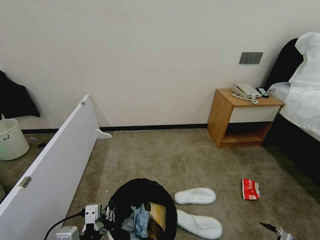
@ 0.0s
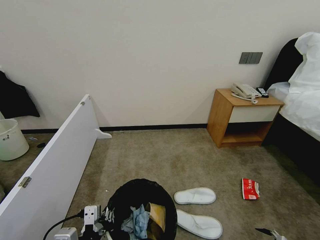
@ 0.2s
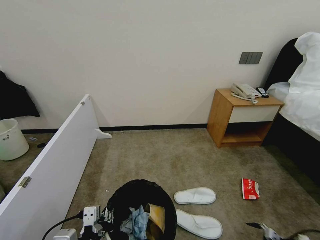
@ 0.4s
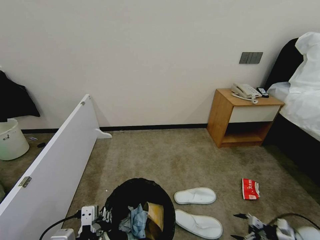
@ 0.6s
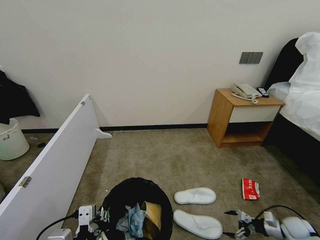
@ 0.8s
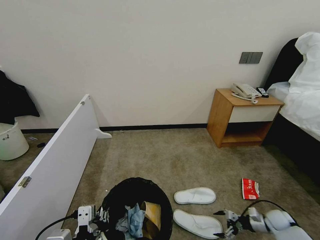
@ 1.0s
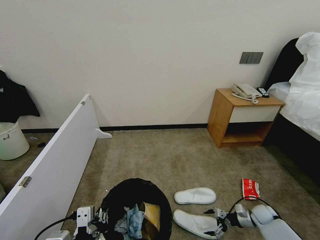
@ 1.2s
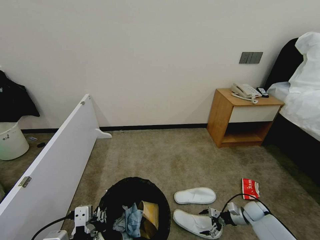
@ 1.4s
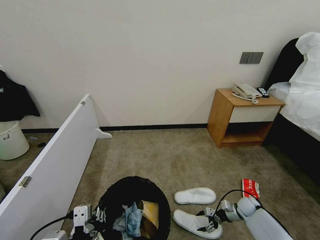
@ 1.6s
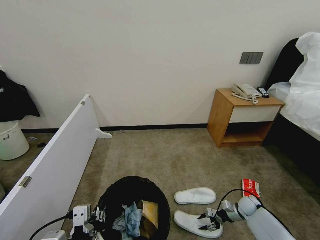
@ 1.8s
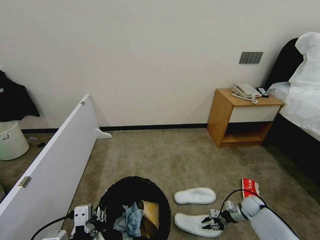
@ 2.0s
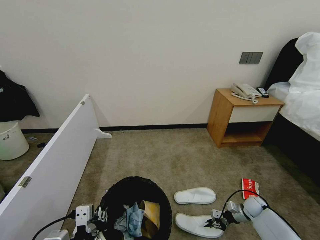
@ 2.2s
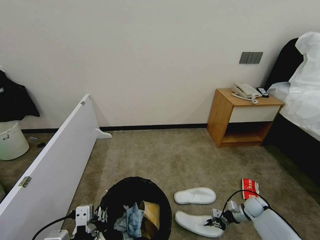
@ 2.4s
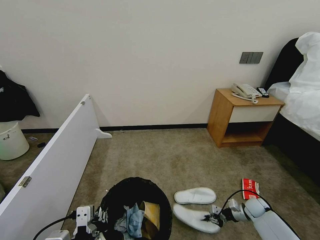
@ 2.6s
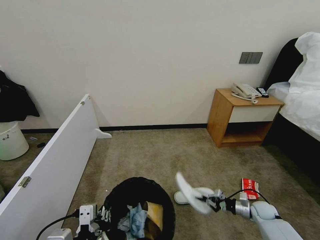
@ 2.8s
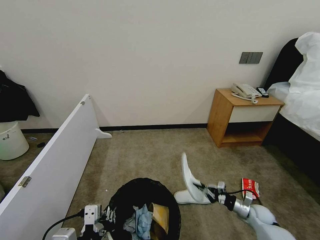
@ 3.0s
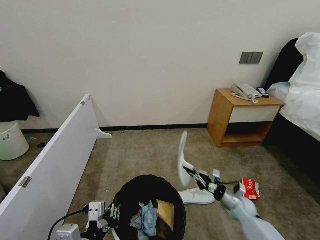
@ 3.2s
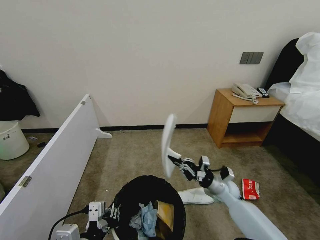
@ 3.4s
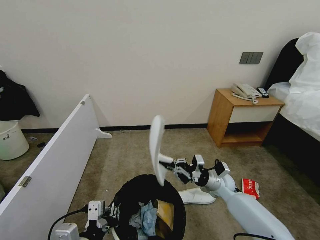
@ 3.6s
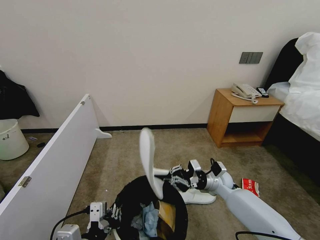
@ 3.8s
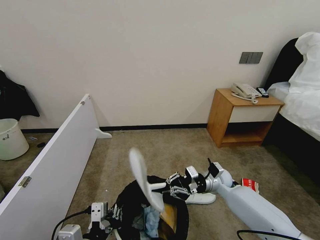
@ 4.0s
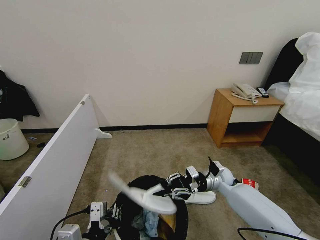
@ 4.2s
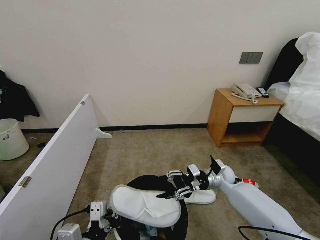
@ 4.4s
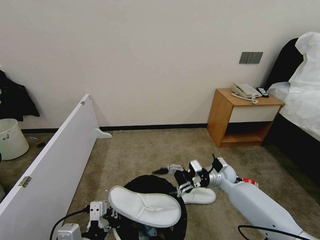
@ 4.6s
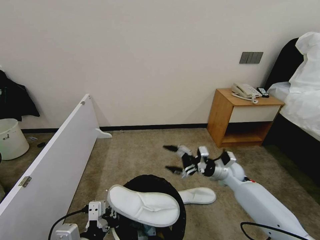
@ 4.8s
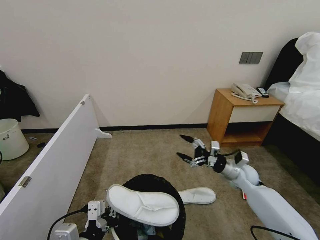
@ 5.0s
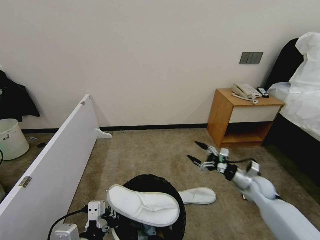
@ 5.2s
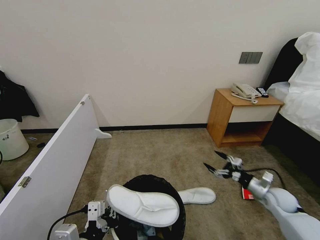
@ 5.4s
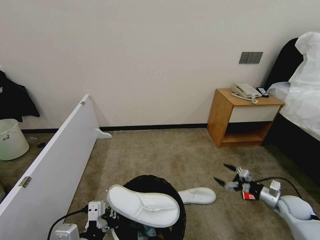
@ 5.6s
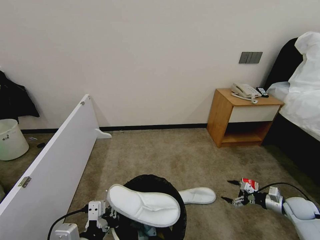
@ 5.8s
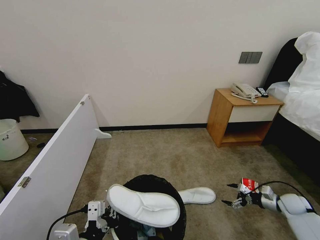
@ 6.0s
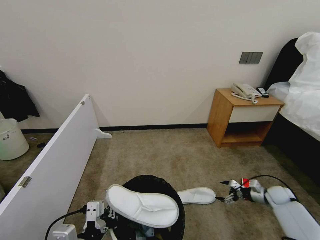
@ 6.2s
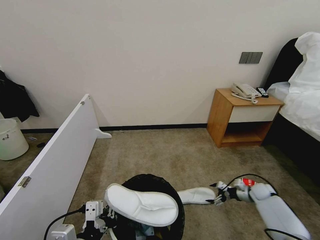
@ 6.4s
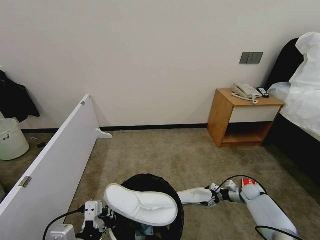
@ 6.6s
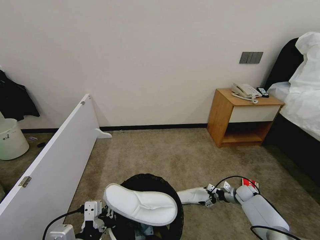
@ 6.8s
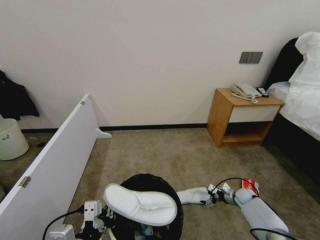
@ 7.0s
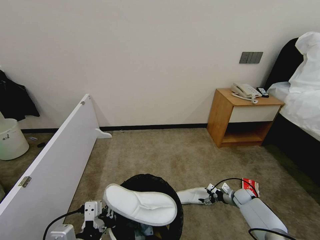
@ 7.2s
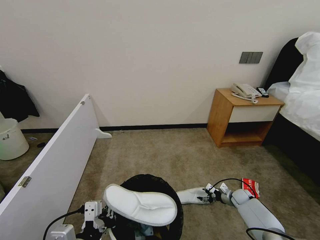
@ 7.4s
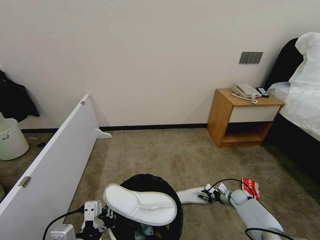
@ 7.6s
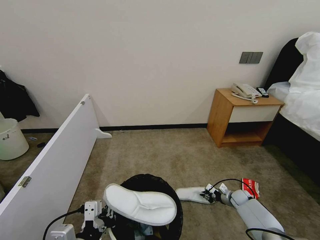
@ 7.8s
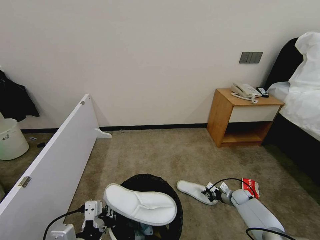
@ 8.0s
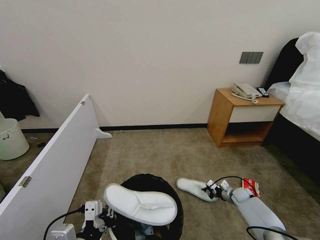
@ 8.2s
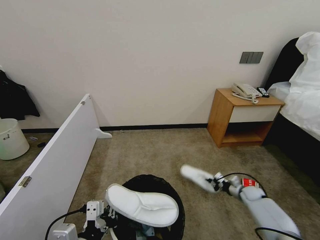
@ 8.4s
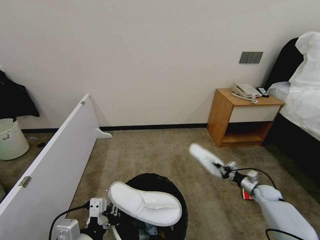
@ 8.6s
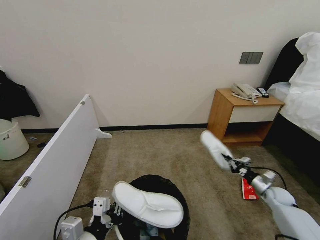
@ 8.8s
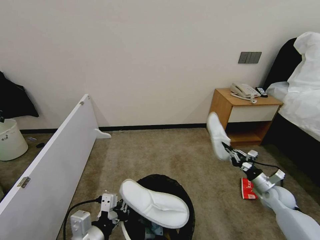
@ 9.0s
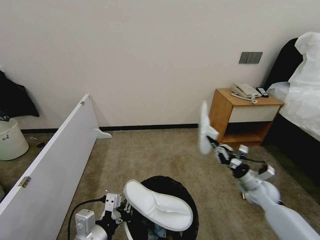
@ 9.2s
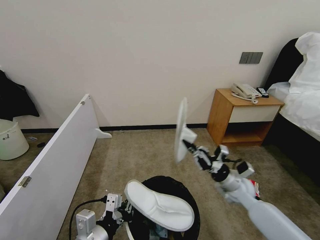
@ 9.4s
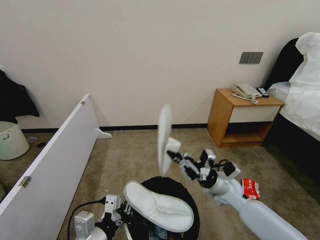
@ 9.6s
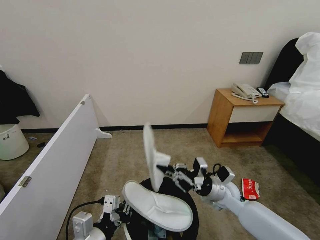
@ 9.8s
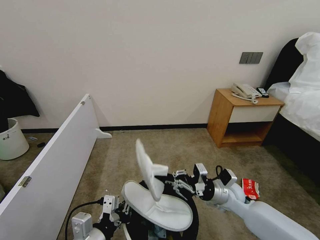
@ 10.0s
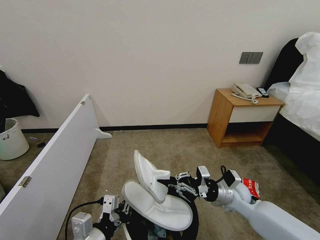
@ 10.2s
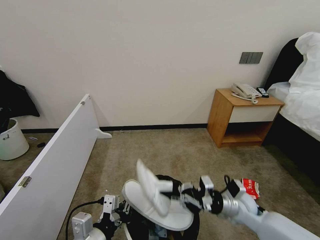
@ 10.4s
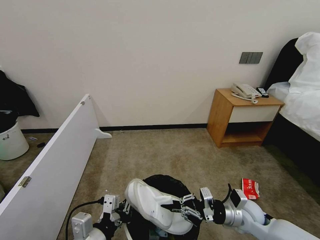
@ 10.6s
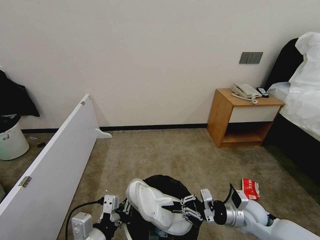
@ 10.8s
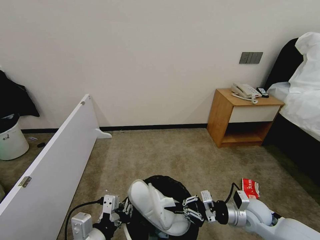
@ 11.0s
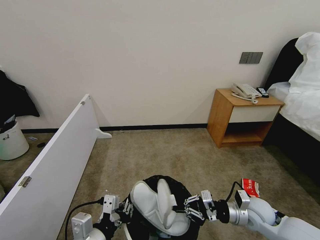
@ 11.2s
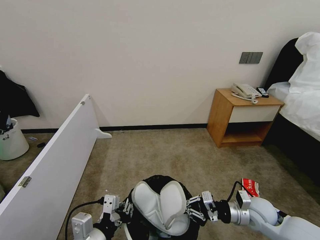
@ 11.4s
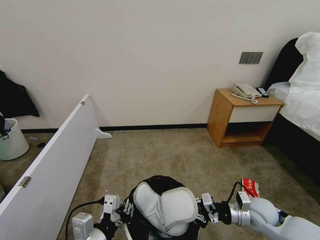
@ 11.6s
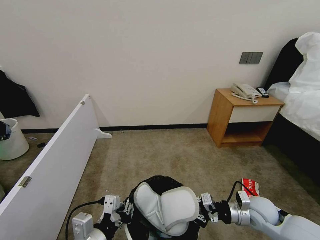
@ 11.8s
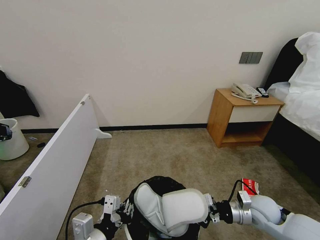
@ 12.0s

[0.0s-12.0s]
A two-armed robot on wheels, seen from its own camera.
Task of the whole recording: Pick up the trash bin, then pick up the garbage from the floor and place it into the trash bin.
0.0s to 1.6s: The right gripper goes about 35 cm forward and to the left.
1.6s to 3.0s: The right gripper moves approximately 5 cm, and closes its fingers.
3.0s to 4.4s: The right gripper travels to the left and upward by about 25 cm, and opens.
4.4s to 6.0s: The right gripper is displaced to the right by approximately 30 cm, and opens.
6.0s to 7.6s: The right gripper shifts some 20 cm to the left, downward and forward, and closes its fingers.
7.6s to 9.0s: The right gripper travels upward and backward by about 15 cm, and closes up.
9.0s to 10.4s: The right gripper goes roughly 20 cm to the left.
10.4s to 12.0s: The right gripper goes some 5 cm to the right.

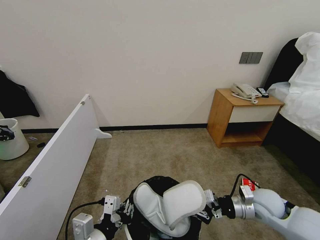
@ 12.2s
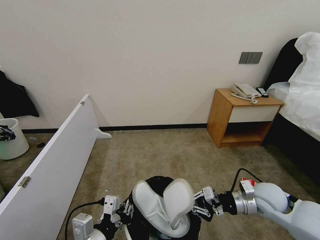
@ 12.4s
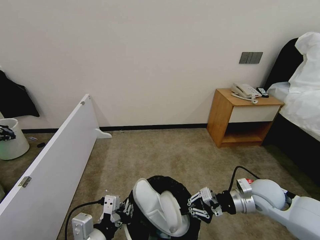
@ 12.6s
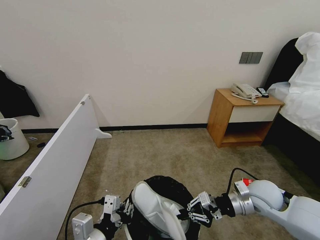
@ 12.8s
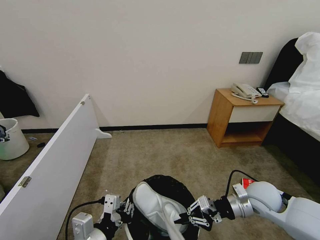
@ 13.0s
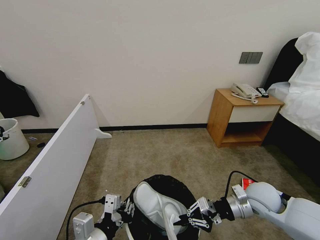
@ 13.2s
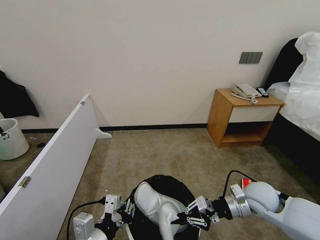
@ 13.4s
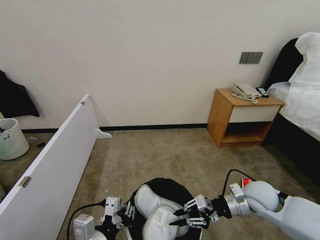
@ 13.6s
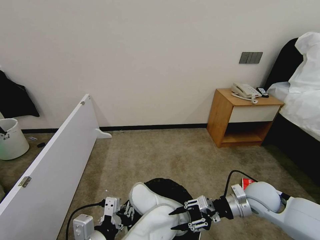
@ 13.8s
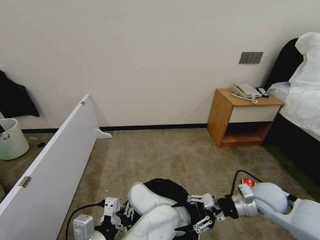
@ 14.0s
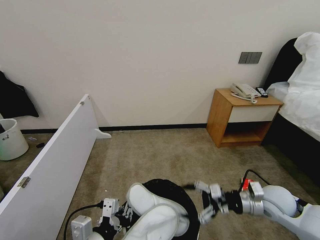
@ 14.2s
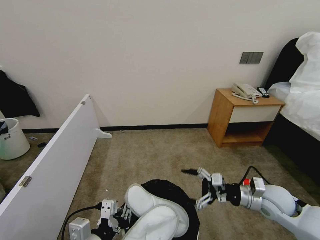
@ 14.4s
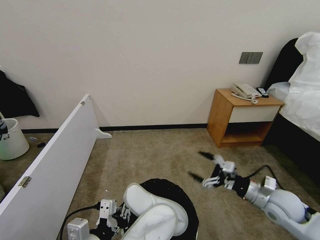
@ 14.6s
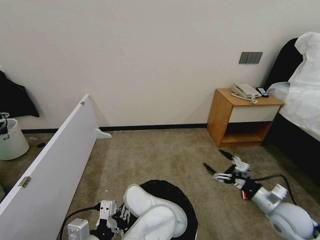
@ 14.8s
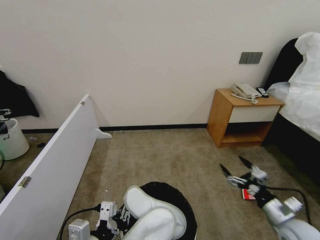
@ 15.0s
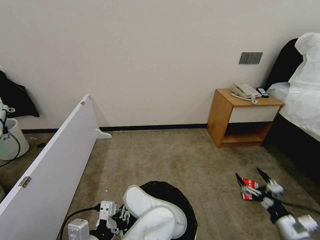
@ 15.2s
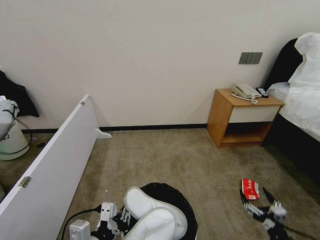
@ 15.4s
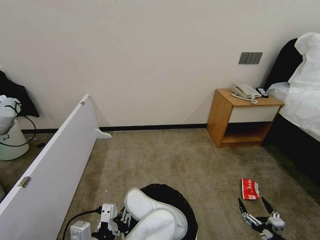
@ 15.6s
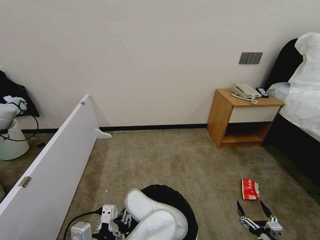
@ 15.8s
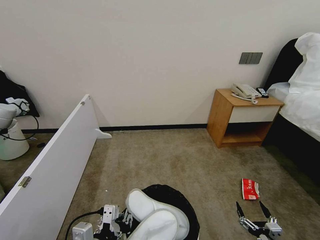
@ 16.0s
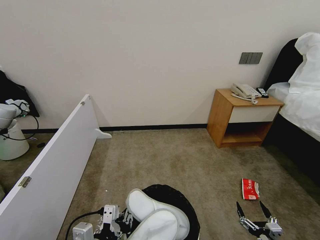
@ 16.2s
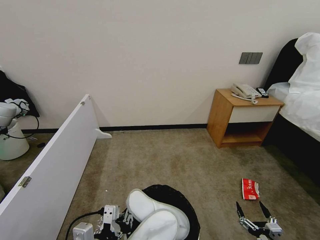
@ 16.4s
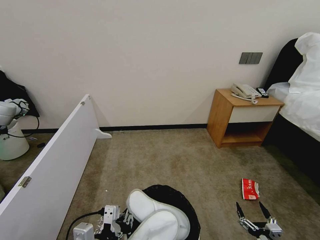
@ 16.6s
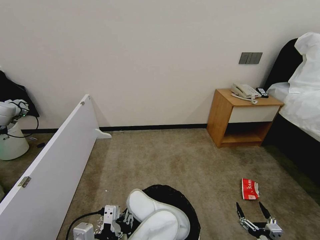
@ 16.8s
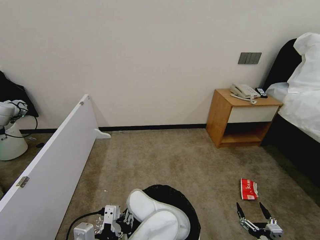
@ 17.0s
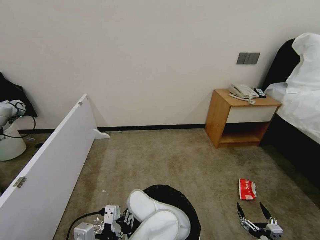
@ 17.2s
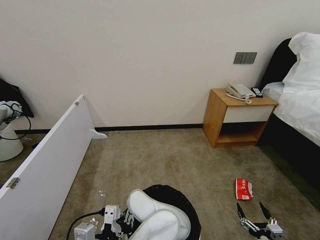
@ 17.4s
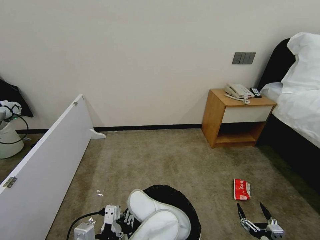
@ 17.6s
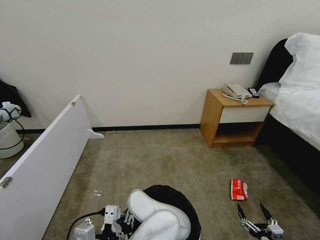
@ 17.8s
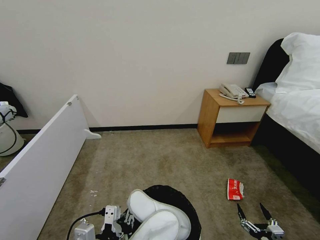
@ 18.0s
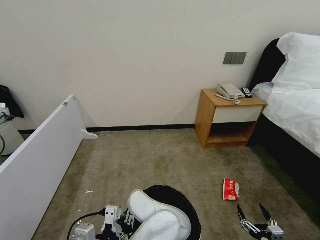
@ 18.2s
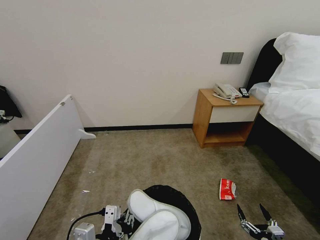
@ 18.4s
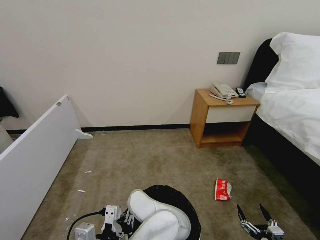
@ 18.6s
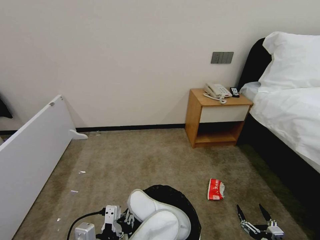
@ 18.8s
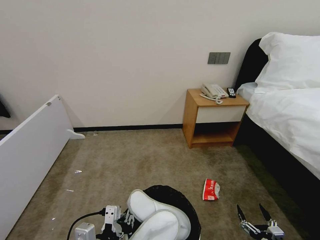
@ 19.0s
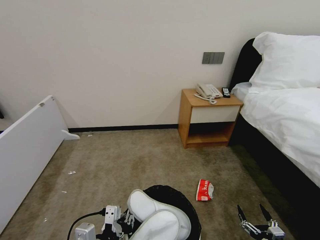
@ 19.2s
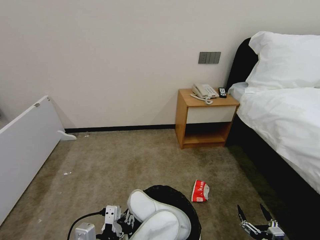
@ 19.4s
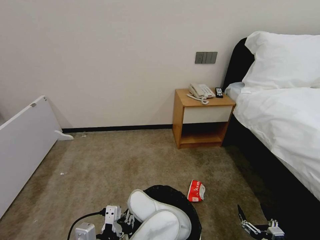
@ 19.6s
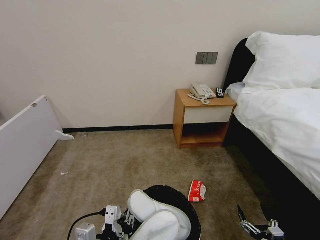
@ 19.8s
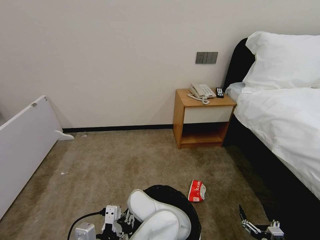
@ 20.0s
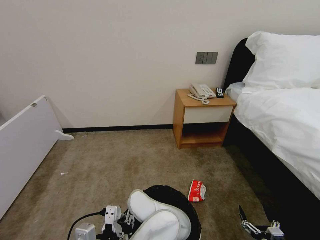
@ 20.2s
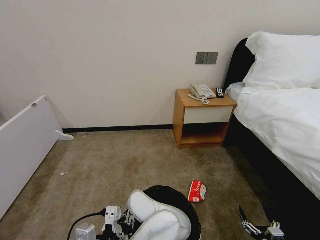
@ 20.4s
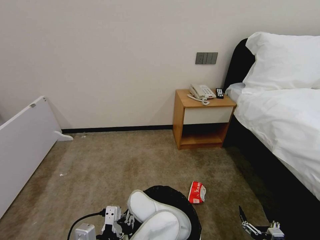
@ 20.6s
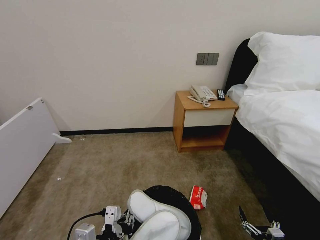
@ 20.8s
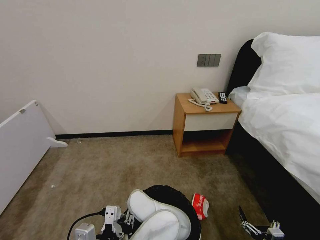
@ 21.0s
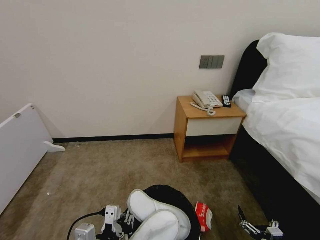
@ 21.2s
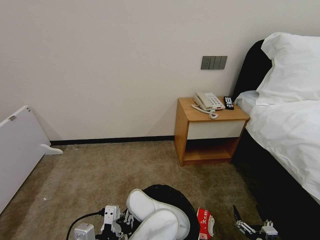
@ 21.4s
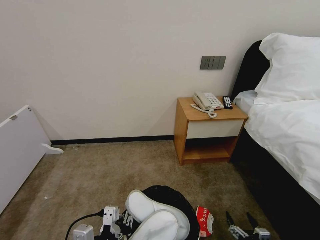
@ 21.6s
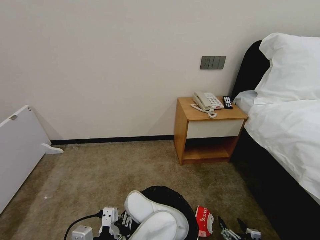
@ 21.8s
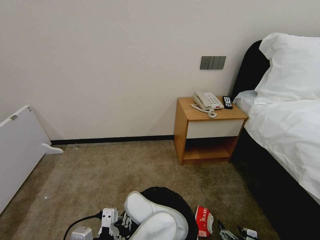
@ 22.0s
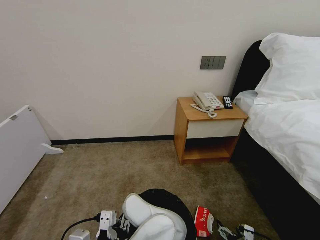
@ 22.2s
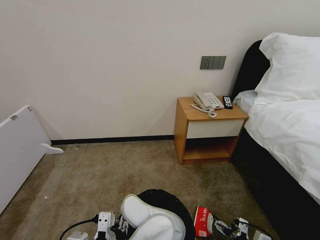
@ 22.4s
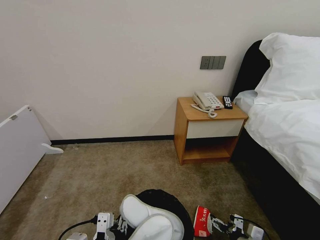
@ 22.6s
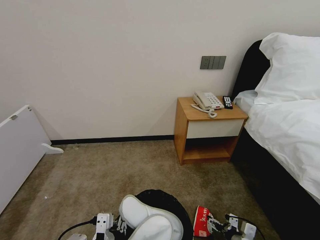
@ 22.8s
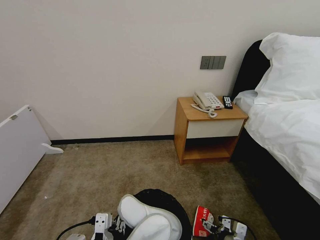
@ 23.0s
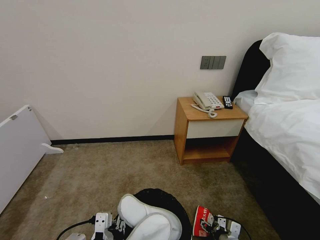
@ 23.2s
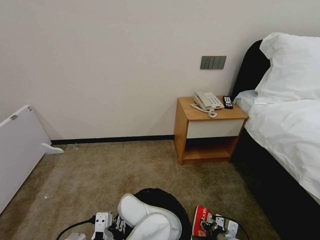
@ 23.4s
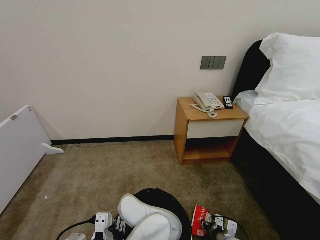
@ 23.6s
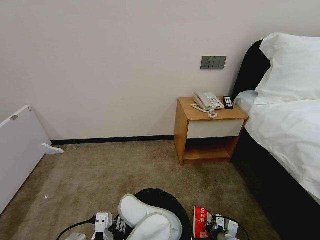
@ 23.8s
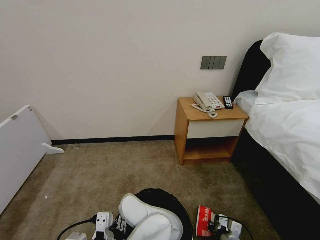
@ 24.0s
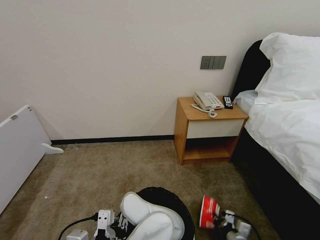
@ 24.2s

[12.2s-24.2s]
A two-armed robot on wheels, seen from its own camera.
Task of the whole recording: Pick up the trash bin, then pick up the garbage from the floor and place it into the trash bin.
12.2s to 13.8s: The right gripper opens its fingers.
13.8s to 15.2s: The right gripper moves backward, to the right and downward, approximately 20 cm, and opens up.
15.2s to 16.6s: The right gripper travels downward and backward by approximately 15 cm.
19.8s to 21.2s: Both grippers stay put.
21.2s to 22.6s: The right gripper heads forward and to the left, covering approximately 10 cm.
22.6s to 24.2s: The right gripper is displaced downward by about 5 cm, and closes up.
